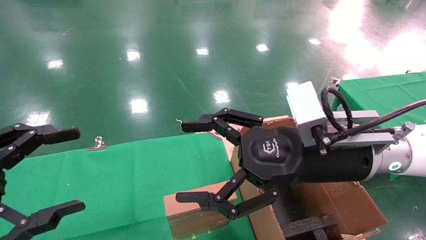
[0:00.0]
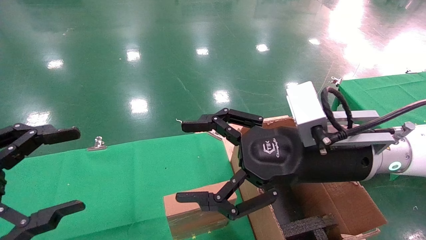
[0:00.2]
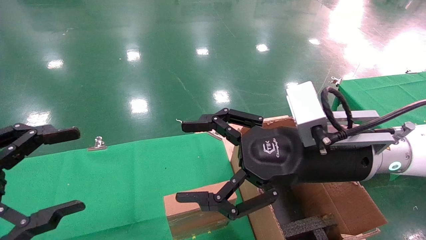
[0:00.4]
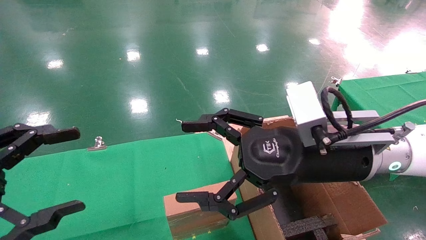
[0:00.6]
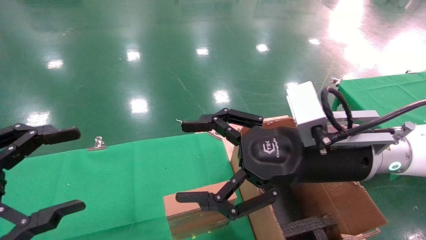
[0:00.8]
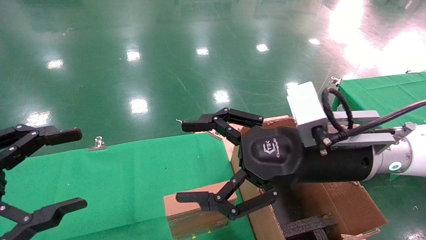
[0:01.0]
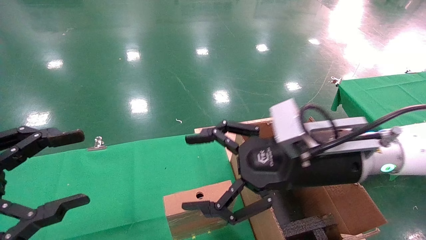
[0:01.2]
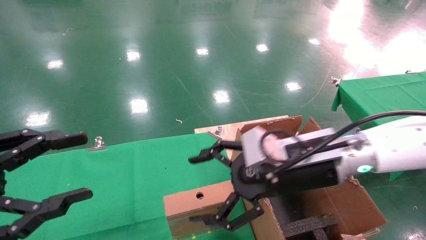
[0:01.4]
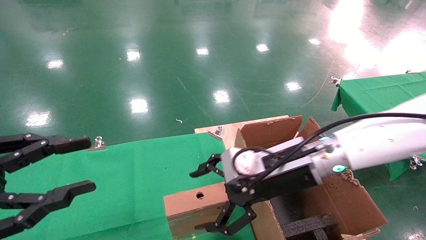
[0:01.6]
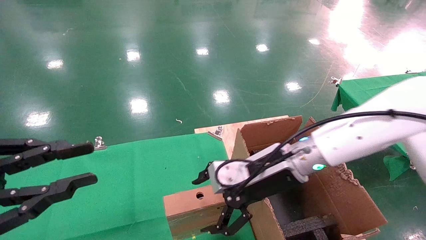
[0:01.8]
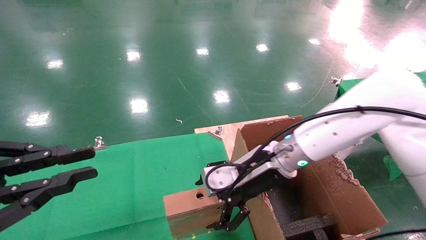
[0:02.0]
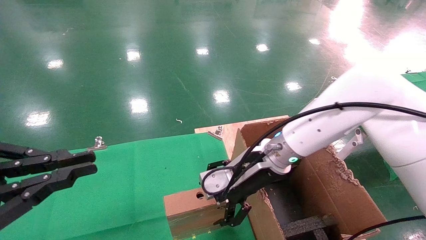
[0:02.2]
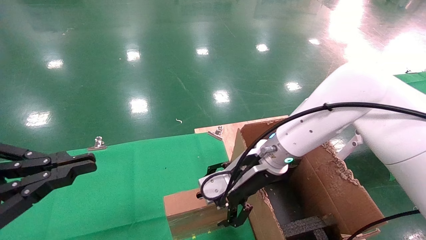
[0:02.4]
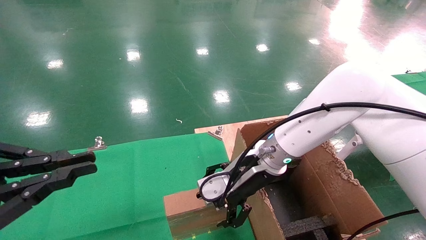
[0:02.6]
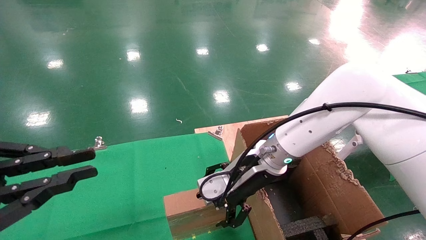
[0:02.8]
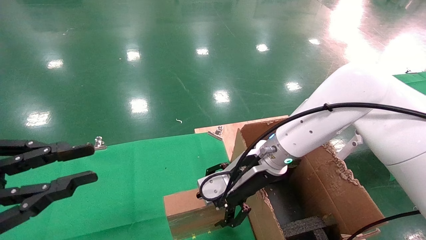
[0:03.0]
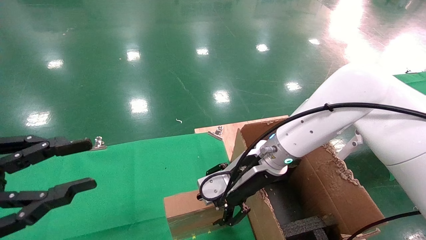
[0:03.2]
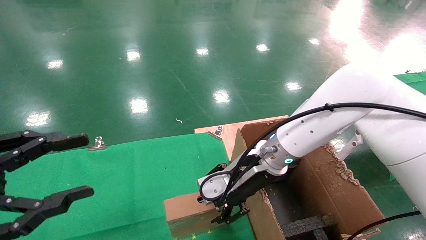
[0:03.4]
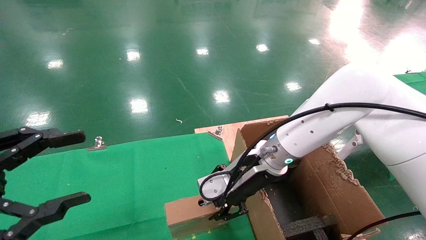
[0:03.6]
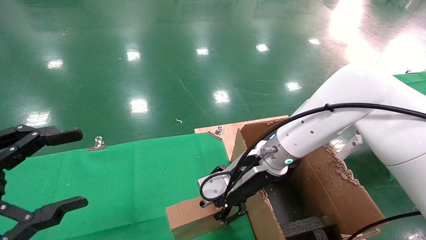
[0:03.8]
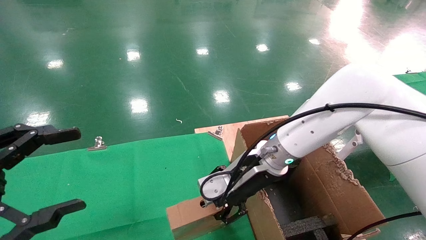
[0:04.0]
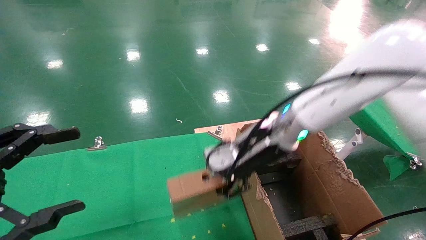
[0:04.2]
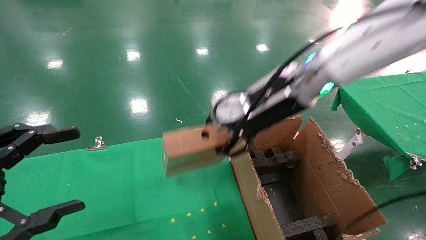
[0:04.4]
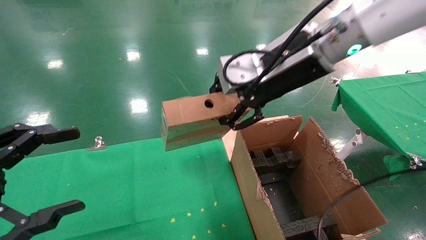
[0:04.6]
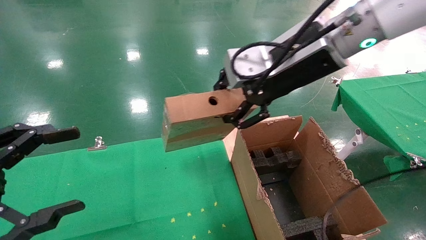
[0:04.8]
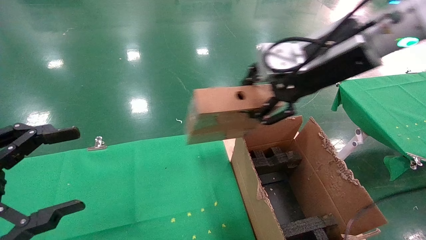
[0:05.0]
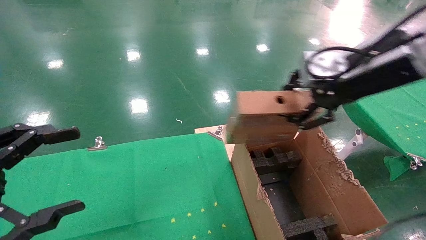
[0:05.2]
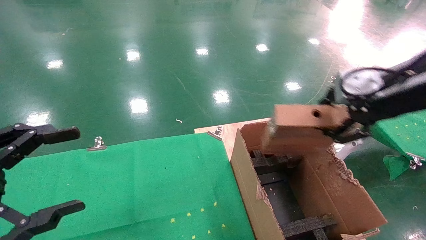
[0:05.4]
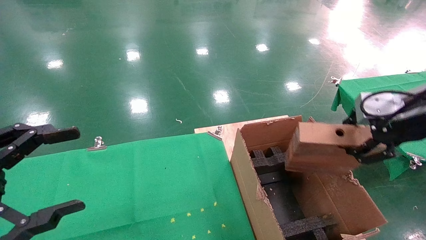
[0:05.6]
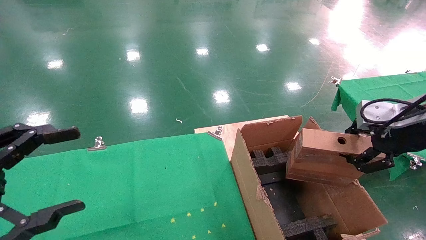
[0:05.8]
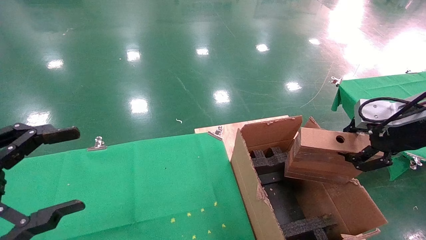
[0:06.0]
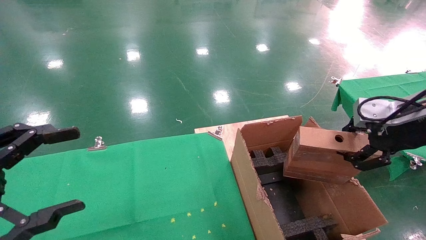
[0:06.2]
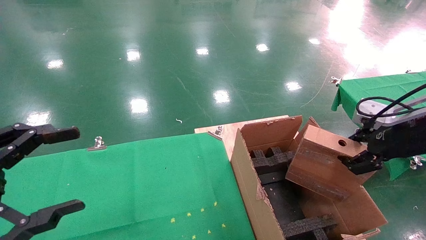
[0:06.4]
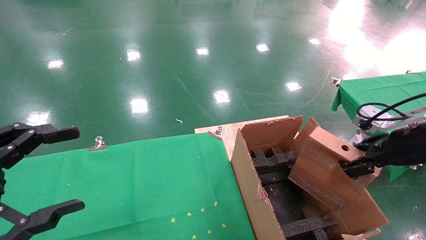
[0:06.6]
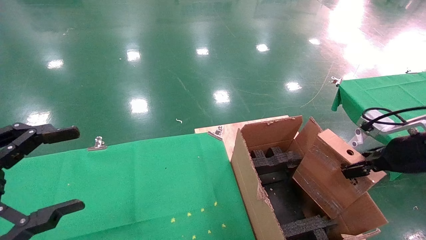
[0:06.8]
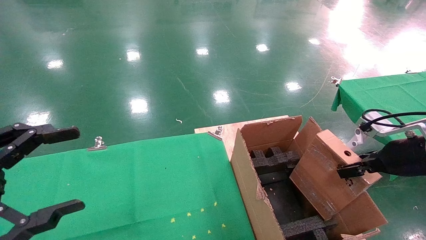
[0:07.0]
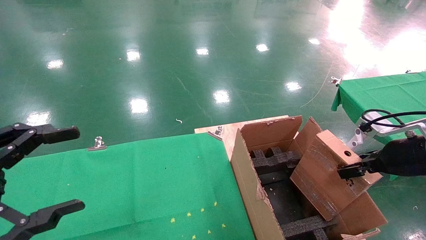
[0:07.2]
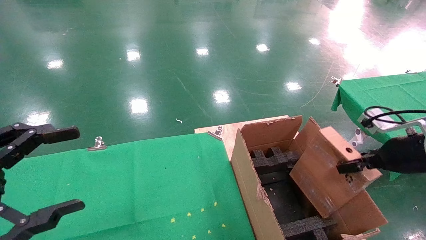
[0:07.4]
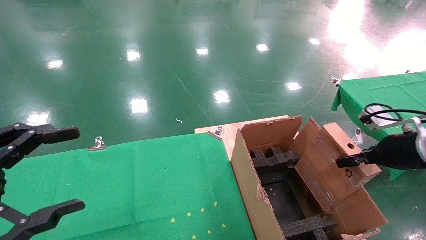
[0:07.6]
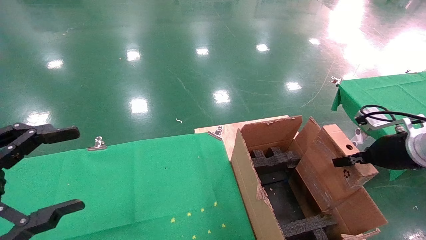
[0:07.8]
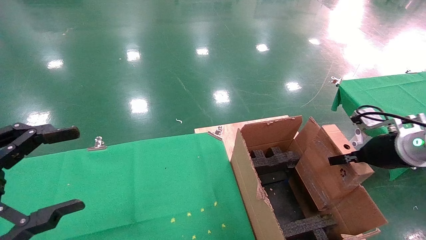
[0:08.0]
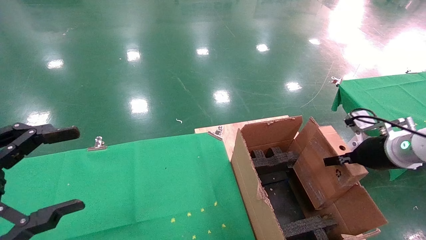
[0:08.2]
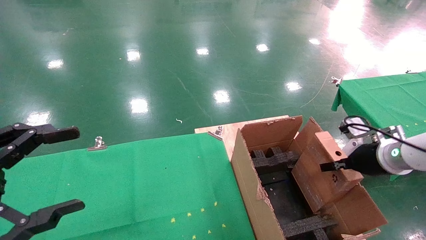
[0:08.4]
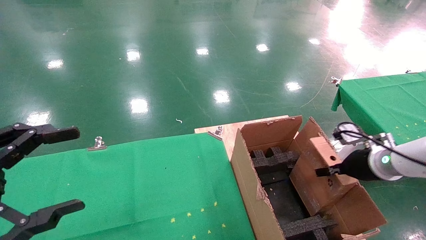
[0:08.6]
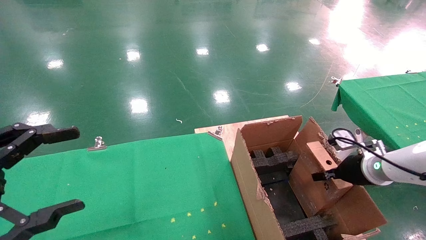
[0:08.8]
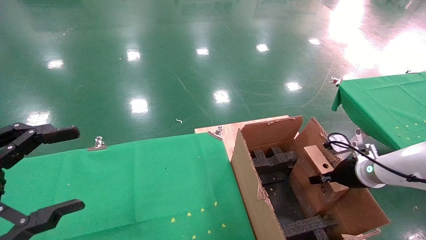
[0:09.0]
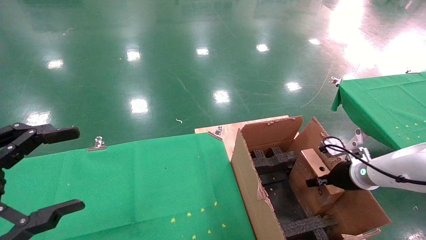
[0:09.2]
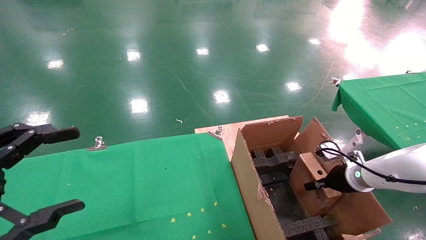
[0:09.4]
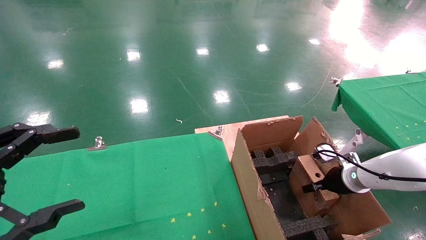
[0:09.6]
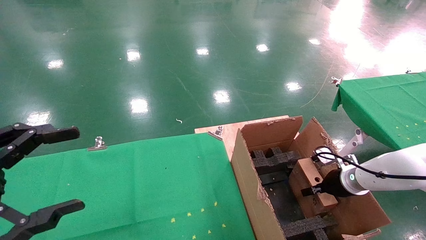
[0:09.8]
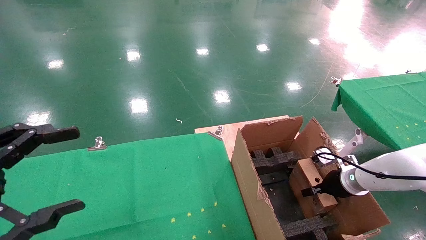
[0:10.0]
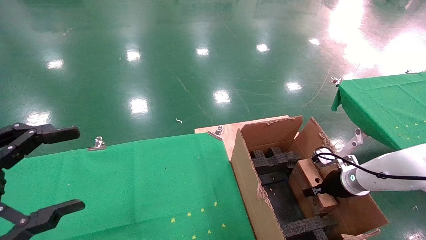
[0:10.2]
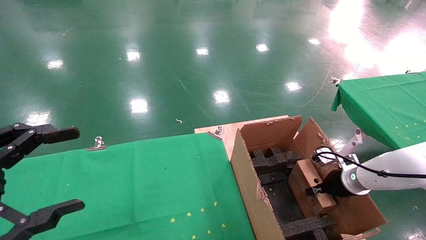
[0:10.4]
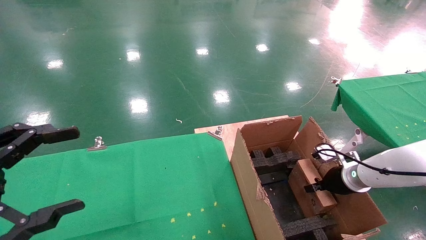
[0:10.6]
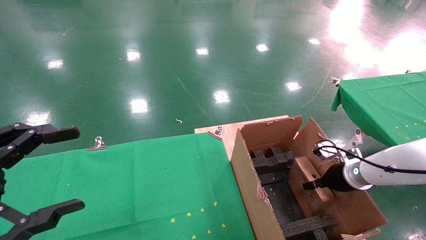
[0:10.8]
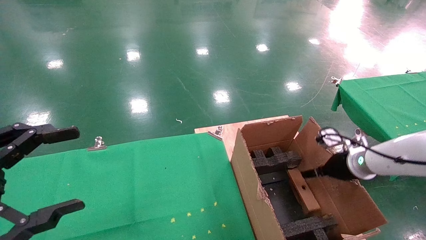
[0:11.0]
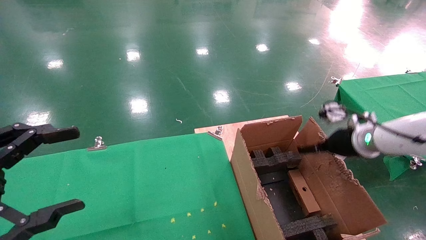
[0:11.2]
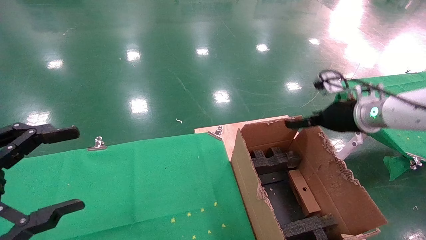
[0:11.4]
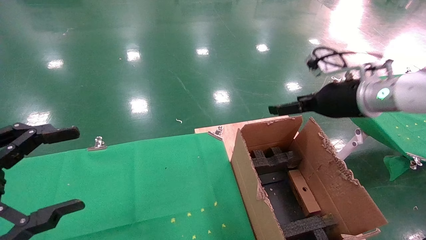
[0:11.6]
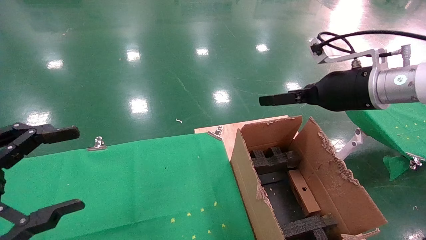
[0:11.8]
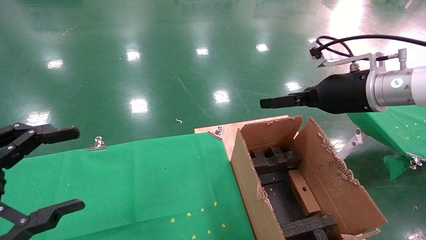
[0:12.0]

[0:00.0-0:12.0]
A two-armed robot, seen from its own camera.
Task of the whole recording: using a robotic arm to pick up a cardboard box and palace it the carton.
Step, 0:01.4 to 0:03.6: Pick up the mouse and the power cord paper box.
Step, 0:03.8 to 0:10.6: Place the mouse and the power cord paper box into the container.
0:00.0 to 0:01.6: The left gripper closes its fingers. The right gripper goes roughly 5 cm forward.
0:01.6 to 0:03.0: The right gripper moves forward, about 5 cm. Meanwhile the left gripper closes.
0:03.0 to 0:04.4: The right gripper heads upward, covering some 15 cm, and closes, while the left gripper opens up.
0:04.4 to 0:06.0: The right gripper is displaced to the right and backward by some 25 cm.
0:06.0 to 0:07.6: The right gripper travels downward by some 10 cm.
0:07.6 to 0:09.0: The right gripper heads downward and forward, covering some 15 cm.
0:09.0 to 0:10.4: There are only small adjustments of the grippers.
0:10.4 to 0:12.0: The right gripper travels upward by roughly 25 cm, and opens.

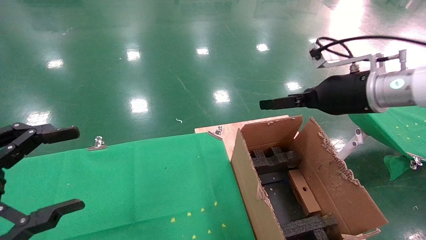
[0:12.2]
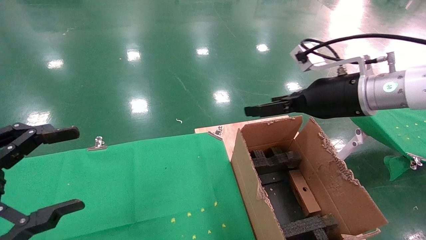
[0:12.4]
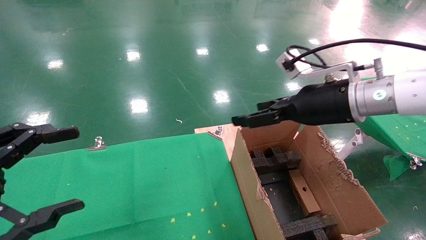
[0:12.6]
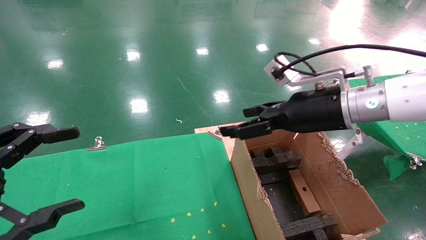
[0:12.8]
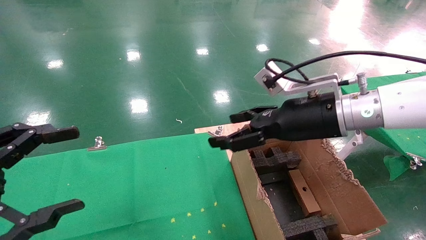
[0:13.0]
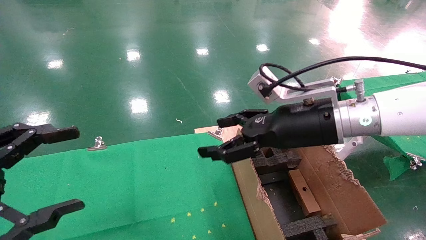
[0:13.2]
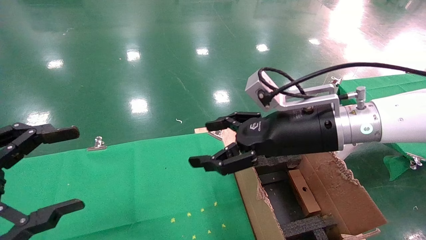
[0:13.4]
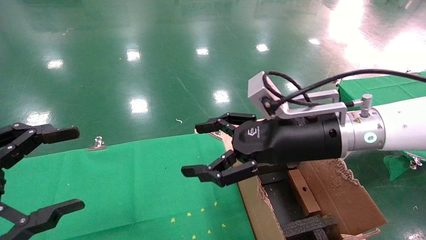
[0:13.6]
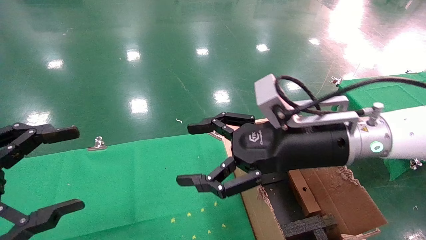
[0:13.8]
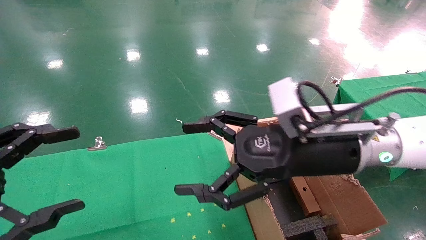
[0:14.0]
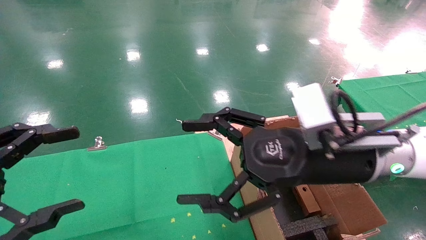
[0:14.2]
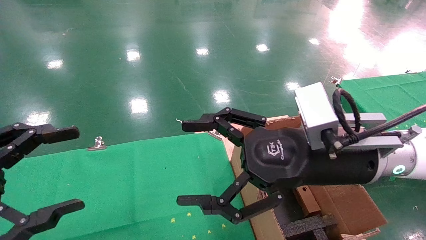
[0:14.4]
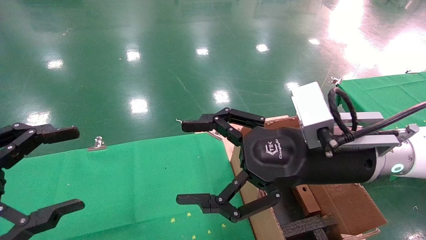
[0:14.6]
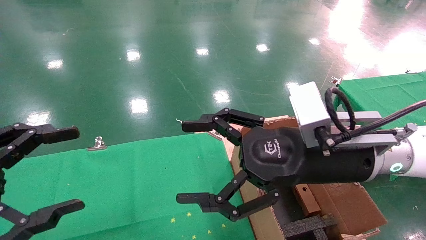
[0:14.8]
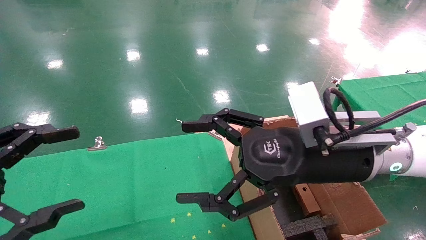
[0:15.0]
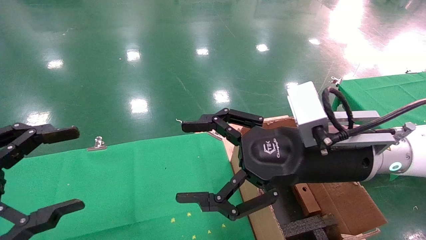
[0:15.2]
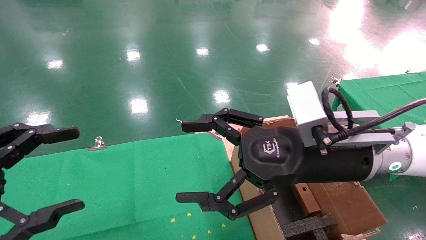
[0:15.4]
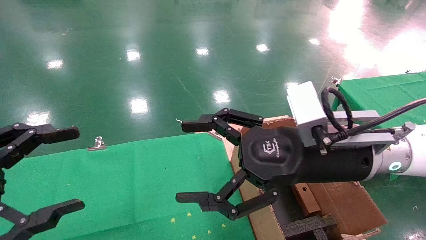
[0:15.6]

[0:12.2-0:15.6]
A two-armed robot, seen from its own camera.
Task of the whole recording: using a robotic arm to pick up a cardboard box and palace it the carton.
0:12.2 to 0:13.8: The right gripper moves to the left and backward, about 10 cm.
0:13.8 to 0:15.6: There are only small adjustments of the grippers.

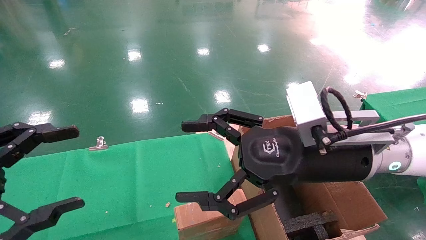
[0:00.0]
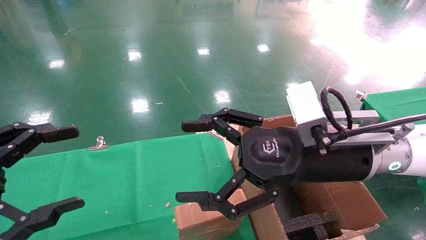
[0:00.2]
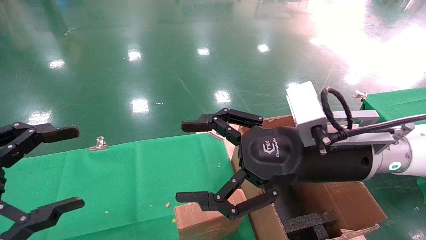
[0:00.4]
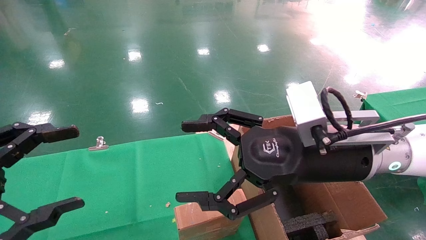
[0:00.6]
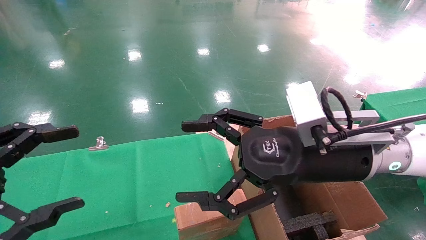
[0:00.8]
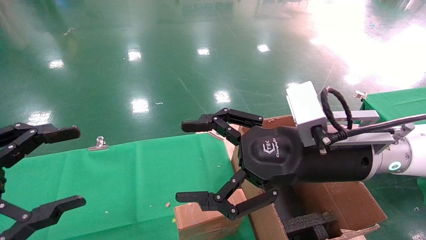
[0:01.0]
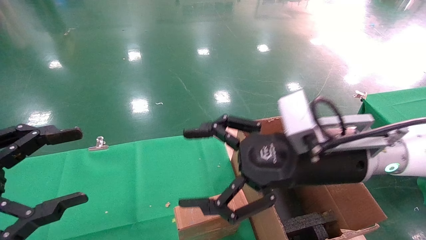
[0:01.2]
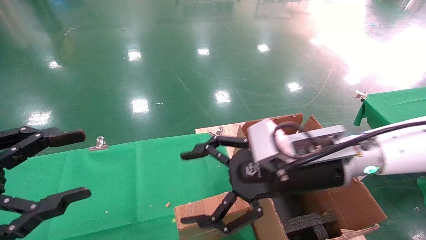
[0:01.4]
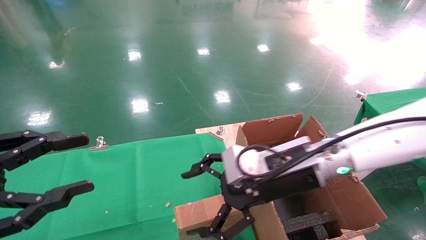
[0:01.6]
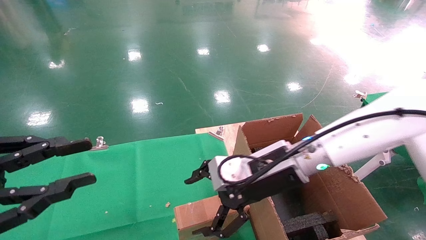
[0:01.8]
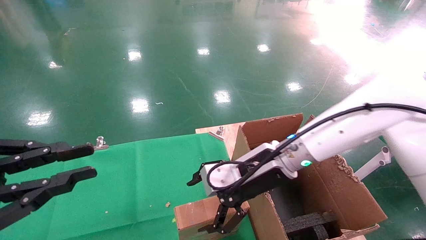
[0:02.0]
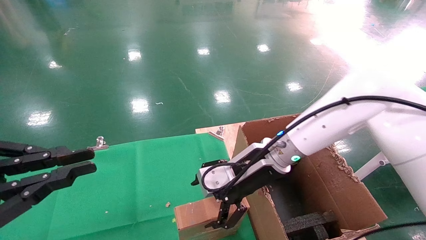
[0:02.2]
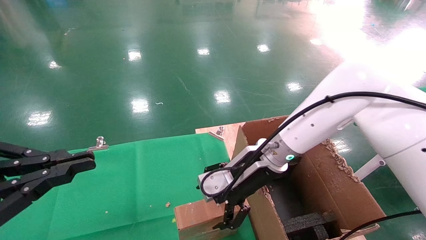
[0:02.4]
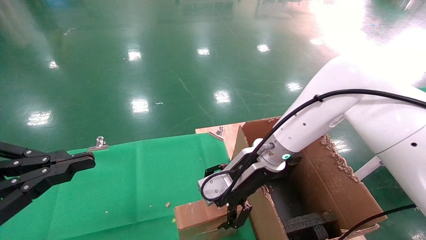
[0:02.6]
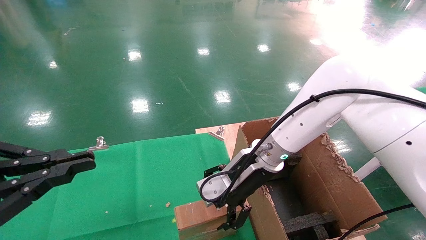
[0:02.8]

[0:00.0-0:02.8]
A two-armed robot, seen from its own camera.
Task of the whole recording: using a robotic arm to pick up a cardboard box and palace it the carton.
0:00.0 to 0:01.4: The right gripper moves approximately 5 cm.
0:01.4 to 0:02.8: The right gripper moves forward, some 10 cm; the left gripper closes.
